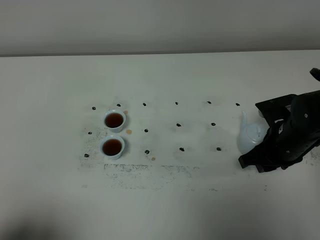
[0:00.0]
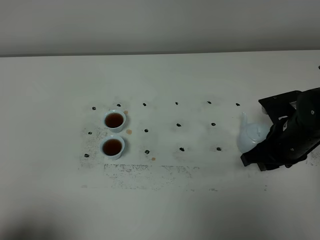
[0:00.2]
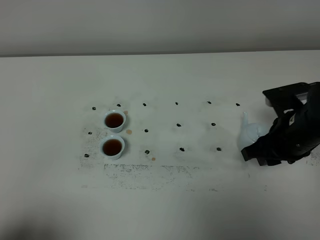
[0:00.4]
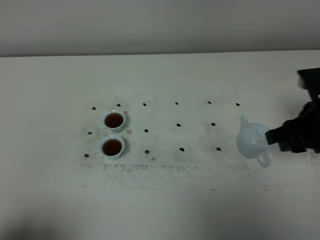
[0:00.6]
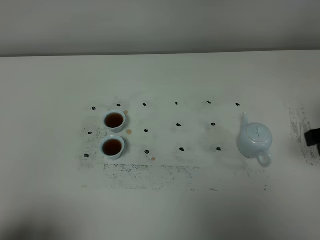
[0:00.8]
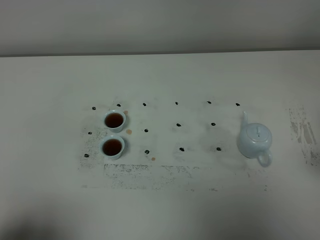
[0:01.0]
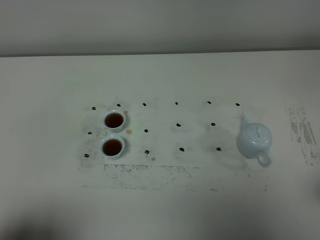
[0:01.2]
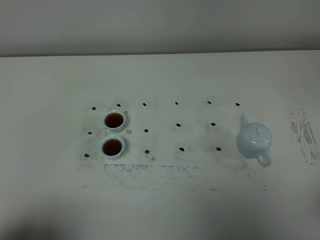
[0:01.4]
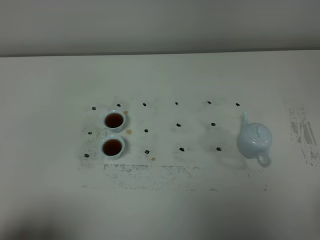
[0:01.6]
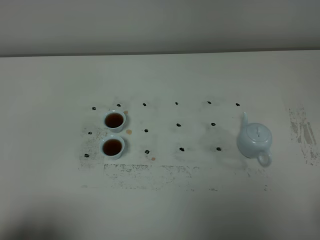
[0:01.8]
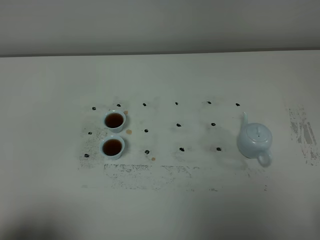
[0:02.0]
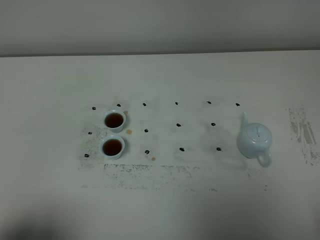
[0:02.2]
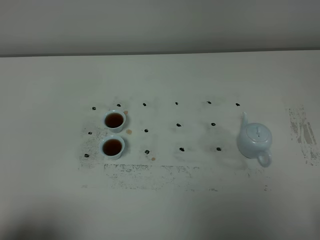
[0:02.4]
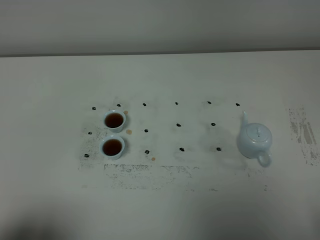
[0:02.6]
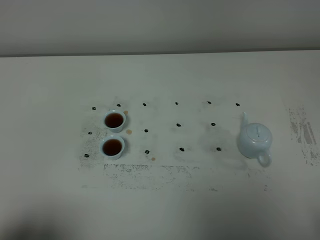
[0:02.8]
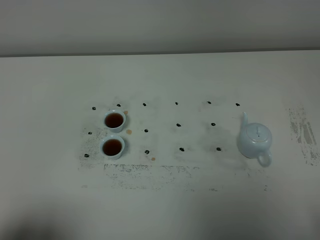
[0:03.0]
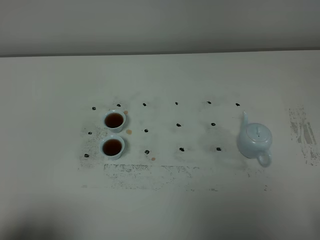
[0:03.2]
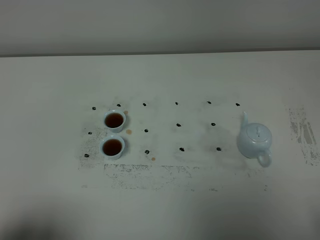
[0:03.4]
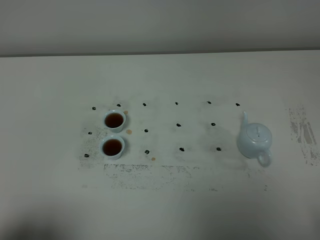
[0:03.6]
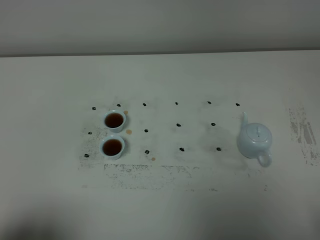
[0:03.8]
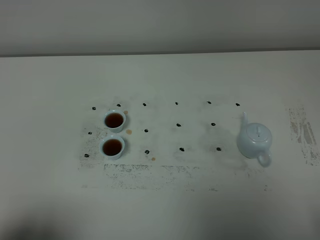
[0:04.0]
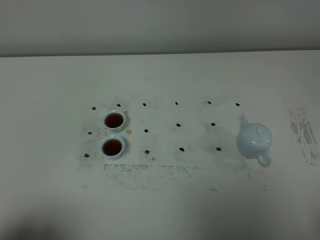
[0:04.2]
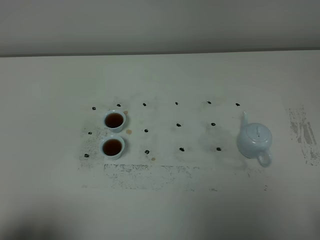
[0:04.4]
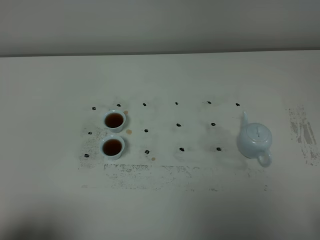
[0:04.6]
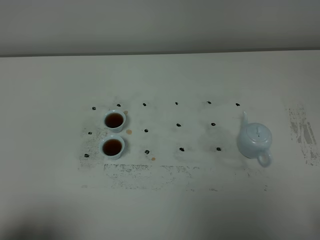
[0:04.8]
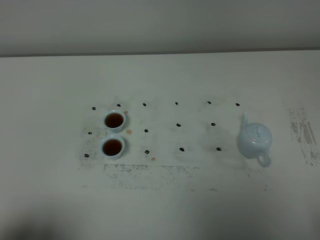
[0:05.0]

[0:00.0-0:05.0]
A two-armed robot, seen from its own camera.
Task of the whole recording: grasp the blue porcelain teapot and pour the tea into the two blue porcelain teacups one by one, put the blue porcelain teapot back in its original place.
0:00.0 to 0:01.6: The right gripper is displaced backward and upward by about 30 cm.
0:03.4 to 0:05.0: The two grippers keep their place.

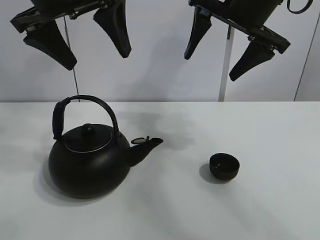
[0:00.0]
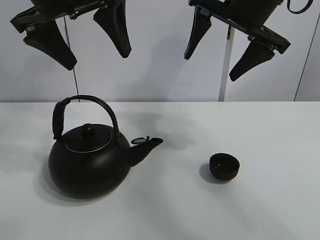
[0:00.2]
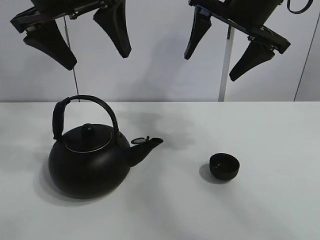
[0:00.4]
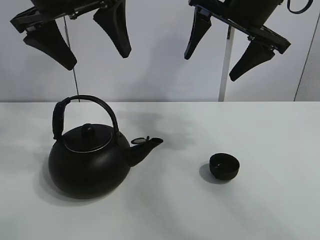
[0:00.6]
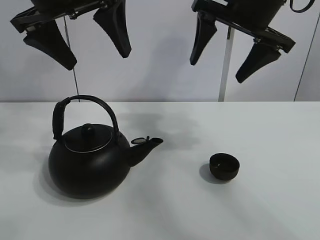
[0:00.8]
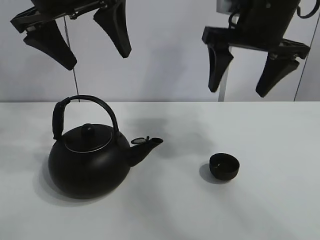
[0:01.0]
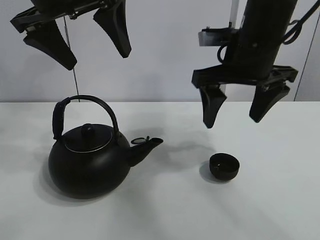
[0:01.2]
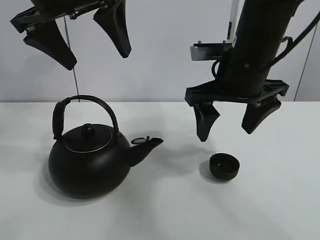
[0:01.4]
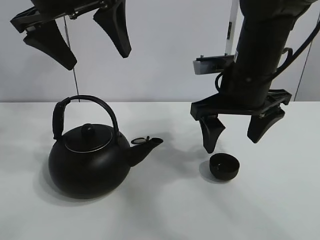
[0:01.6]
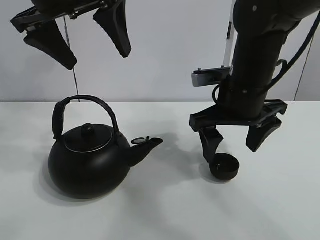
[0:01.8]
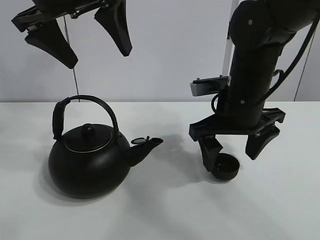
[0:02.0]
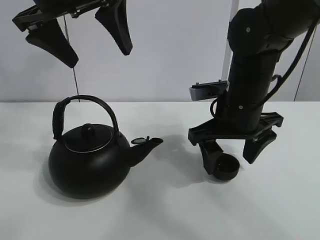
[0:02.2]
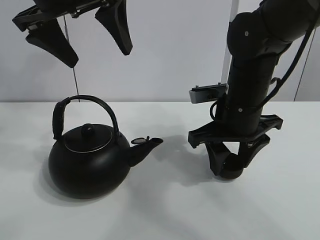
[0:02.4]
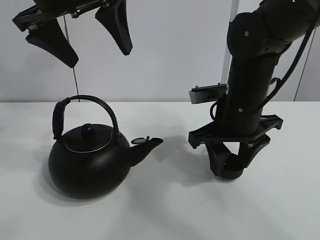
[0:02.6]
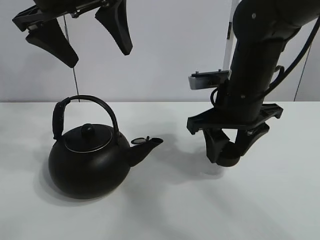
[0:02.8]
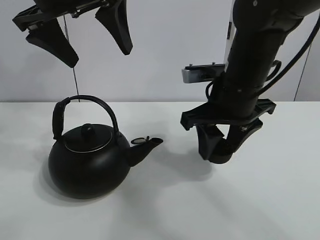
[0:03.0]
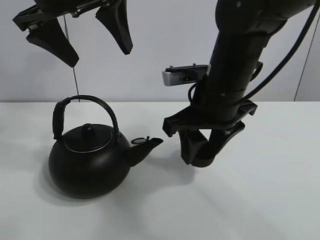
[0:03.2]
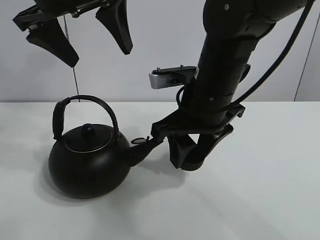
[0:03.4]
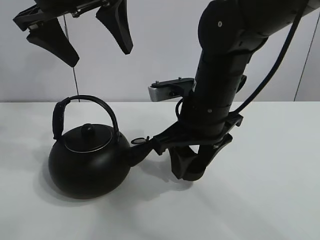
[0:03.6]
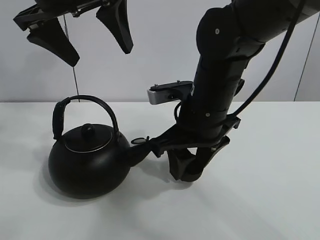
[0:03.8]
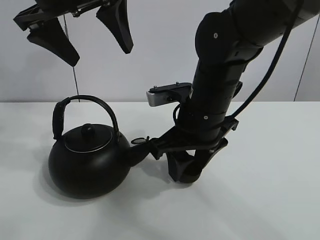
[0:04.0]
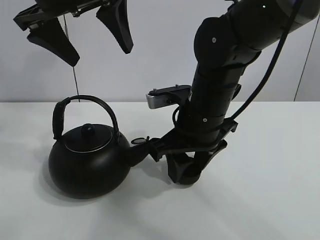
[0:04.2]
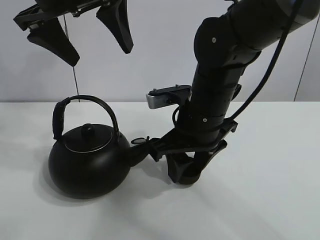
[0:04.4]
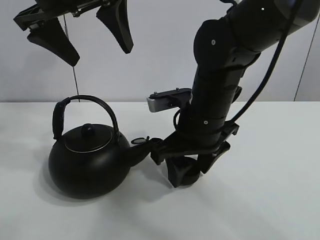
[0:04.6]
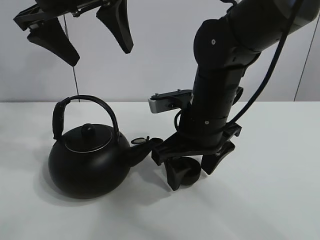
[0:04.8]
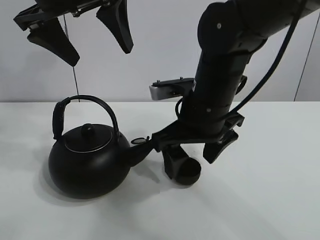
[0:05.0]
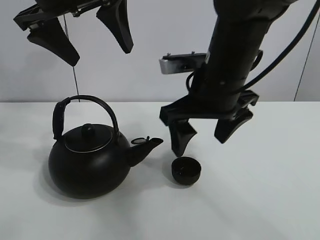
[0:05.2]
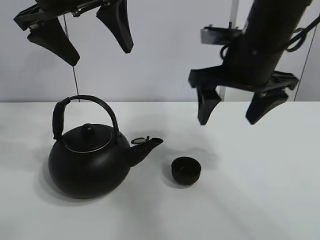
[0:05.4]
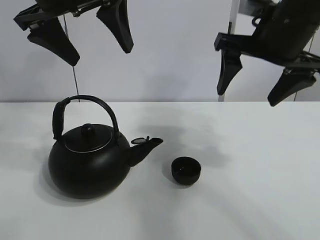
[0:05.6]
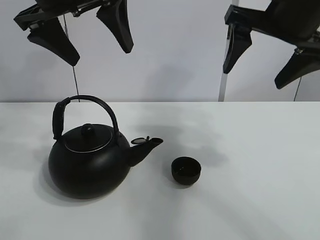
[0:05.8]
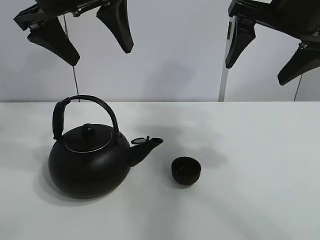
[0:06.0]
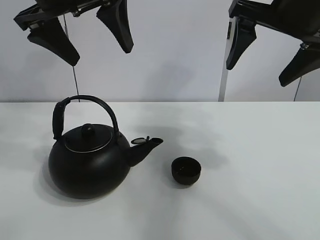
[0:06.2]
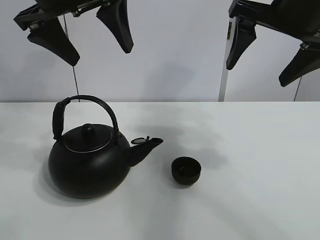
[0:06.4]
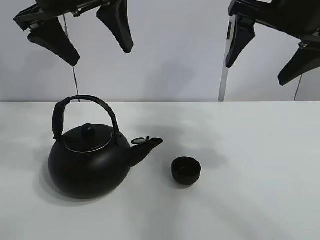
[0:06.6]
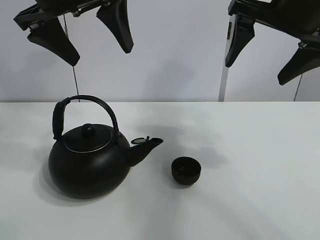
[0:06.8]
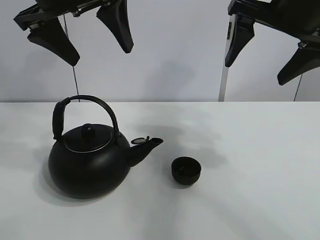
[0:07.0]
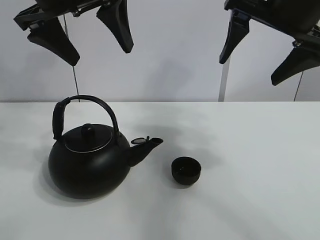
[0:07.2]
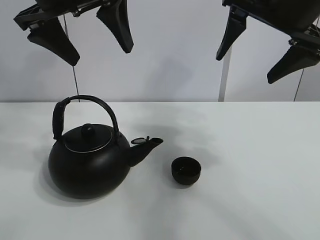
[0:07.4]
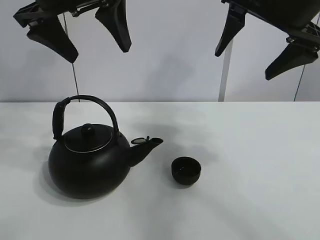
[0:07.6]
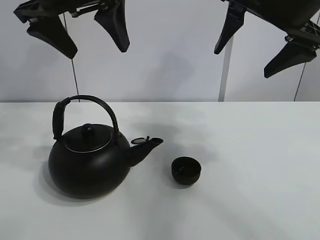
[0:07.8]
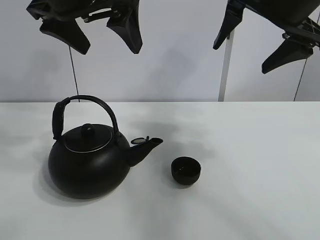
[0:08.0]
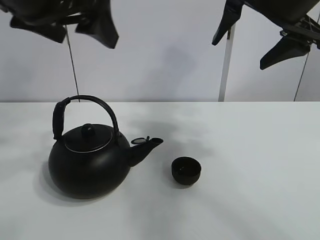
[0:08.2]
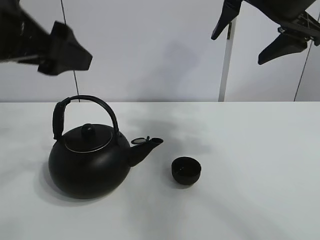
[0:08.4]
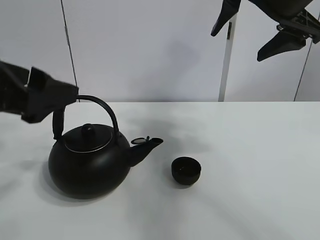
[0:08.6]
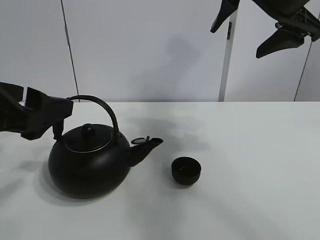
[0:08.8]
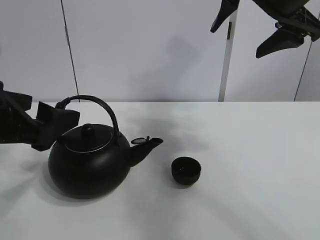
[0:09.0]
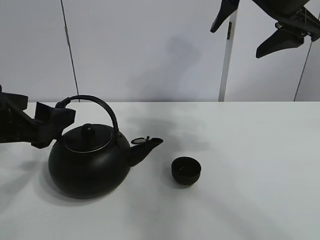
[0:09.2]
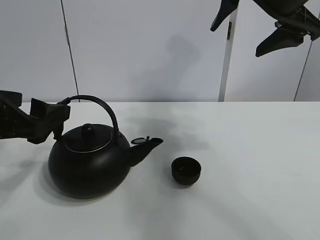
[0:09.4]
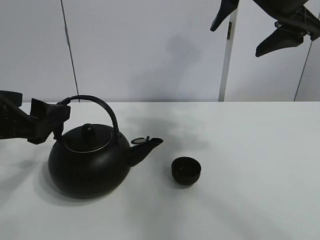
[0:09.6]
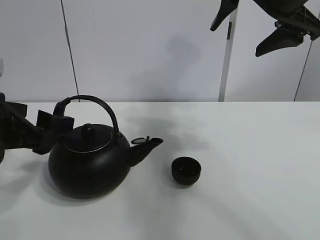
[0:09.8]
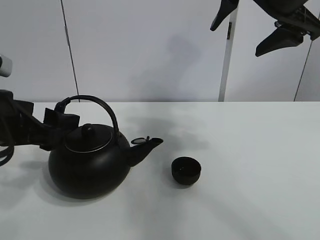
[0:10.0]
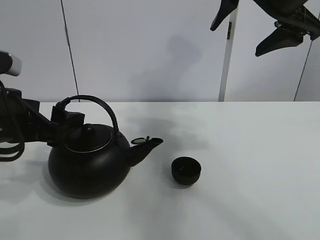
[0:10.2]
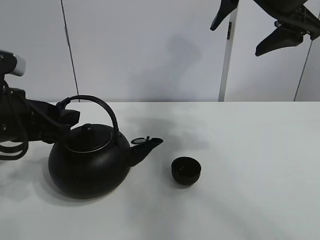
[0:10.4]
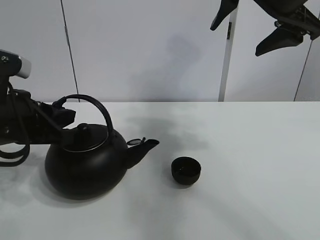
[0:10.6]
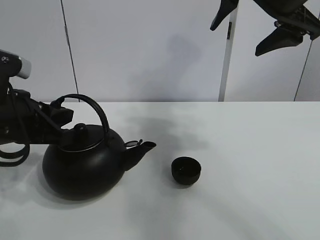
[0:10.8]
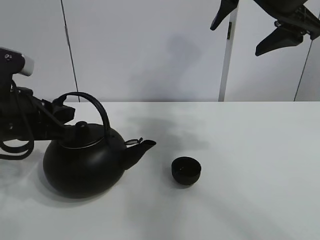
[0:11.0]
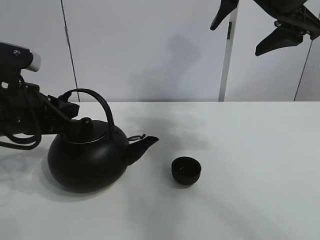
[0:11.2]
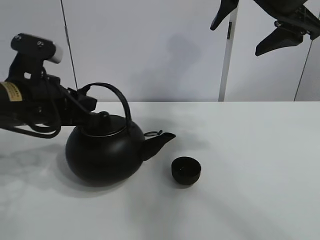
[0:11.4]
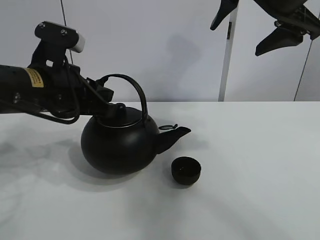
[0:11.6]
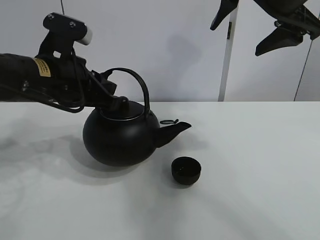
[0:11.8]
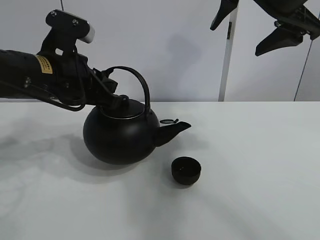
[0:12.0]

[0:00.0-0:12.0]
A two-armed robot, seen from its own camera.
Task of the whole recording: pour tea into the teacup.
Step, 0:00.0 to 0:02.6: Pick up the teacup with the right gripper.
Step, 0:02.8 to 0:04.8: Place the teacup in the center of view with the right gripper.
Step, 0:05.0 to 0:10.8: Pick up the teapot with the left gripper.
0:01.6 to 0:03.0: The right gripper closes up.
0:03.0 to 0:04.4: The right gripper goes about 5 cm to the left.
0:04.4 to 0:06.0: The right gripper shifts roughly 20 cm upward and to the right, and opens its fingers.
0:06.0 to 0:07.6: The grippers make only small movements.
0:07.6 to 0:09.0: The left gripper shifts some 20 cm downward, backward and to the left.
0:09.0 to 0:10.4: The left gripper ends up about 5 cm from where it was.
0:10.4 to 0:12.0: The left gripper is displaced to the right and forward by roughly 10 cm, and closes its fingers.

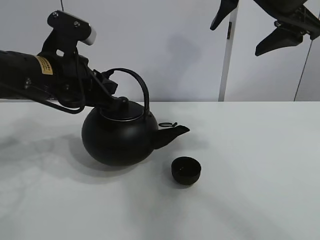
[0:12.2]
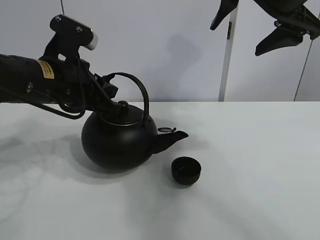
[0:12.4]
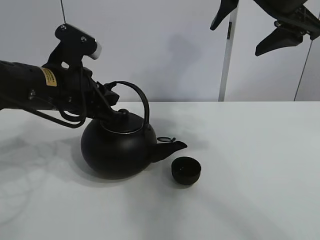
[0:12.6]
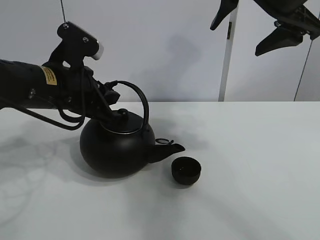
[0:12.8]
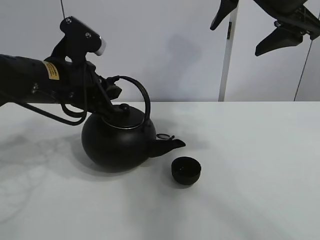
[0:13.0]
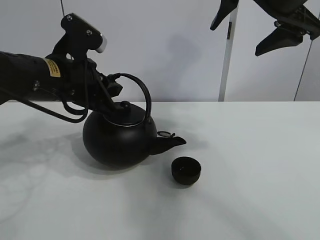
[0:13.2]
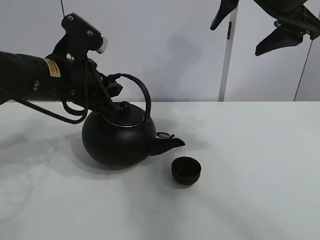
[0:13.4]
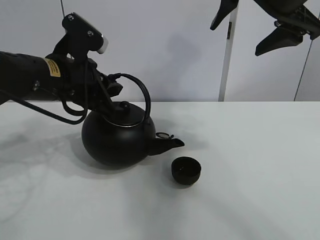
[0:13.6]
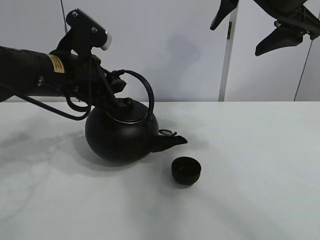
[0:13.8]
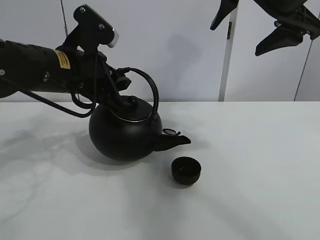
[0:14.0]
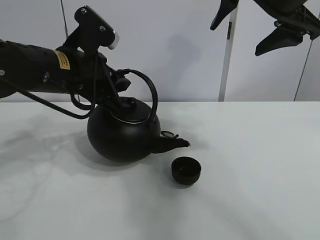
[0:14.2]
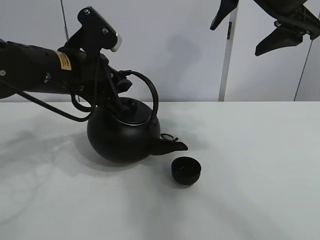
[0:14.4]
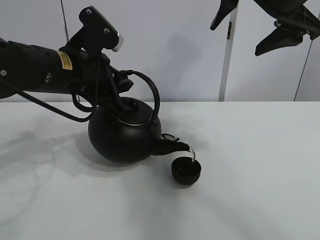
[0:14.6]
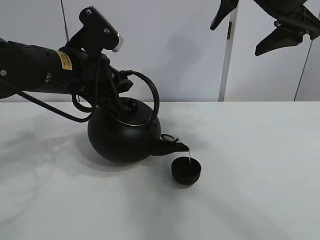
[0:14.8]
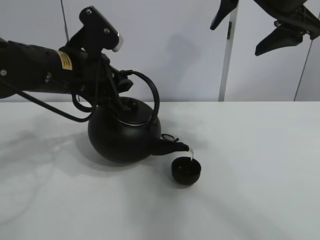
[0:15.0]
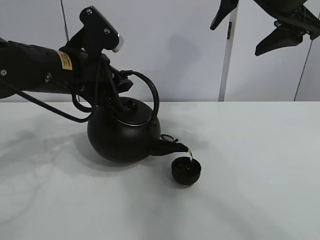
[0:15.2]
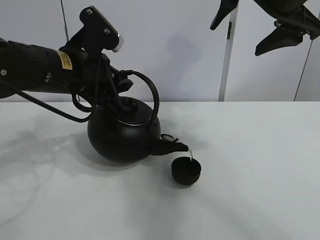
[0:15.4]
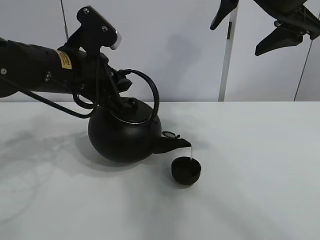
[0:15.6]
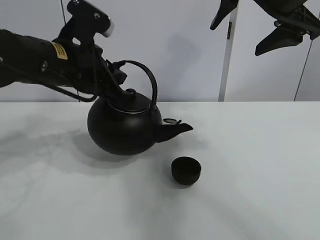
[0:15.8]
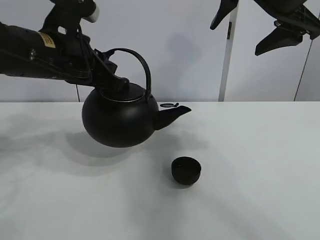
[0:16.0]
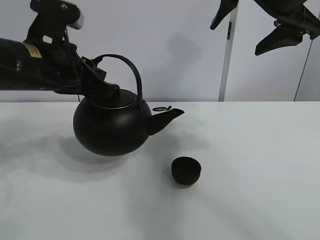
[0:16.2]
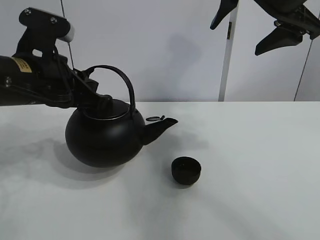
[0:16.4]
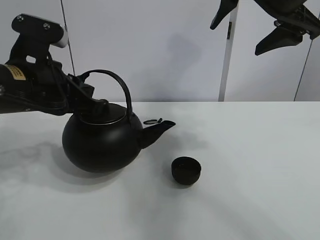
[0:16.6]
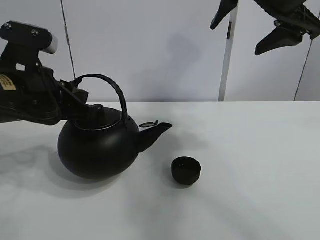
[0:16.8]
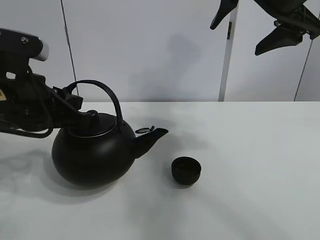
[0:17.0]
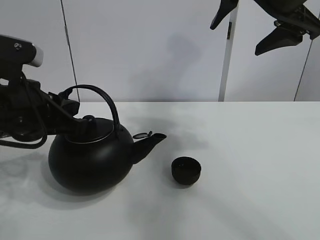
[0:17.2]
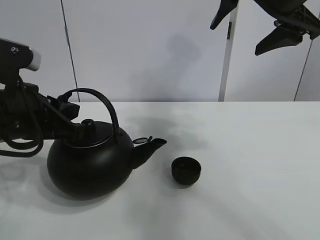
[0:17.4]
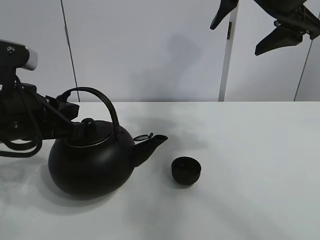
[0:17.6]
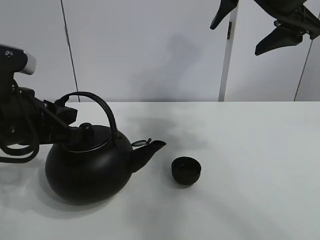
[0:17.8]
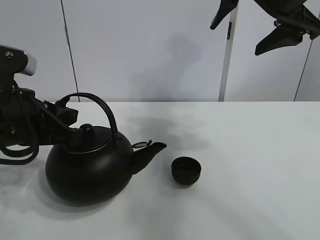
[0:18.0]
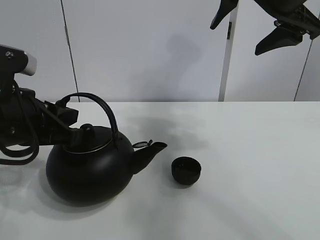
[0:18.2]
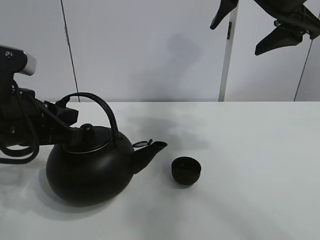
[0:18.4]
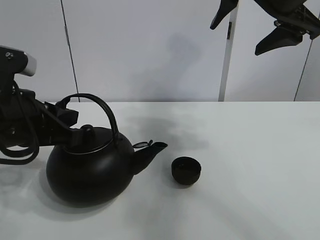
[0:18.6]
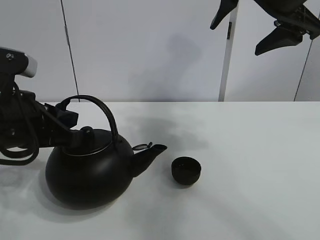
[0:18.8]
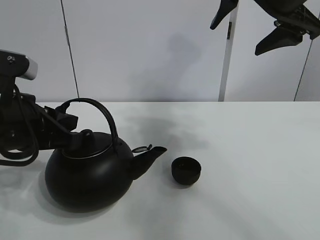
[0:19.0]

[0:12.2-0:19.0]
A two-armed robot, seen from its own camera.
Task of the whole recording: pour tea into the teacup.
Step, 0:12.2 to 0:15.6: Pour tea into the teacup with the left gripper.
0:12.2 to 0:15.0: The grippers move only a little.
0:16.2 to 0:17.6: The left gripper heads backward, covering about 5 cm.
0:17.6 to 0:19.0: Both grippers stay put.
